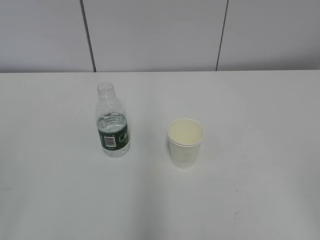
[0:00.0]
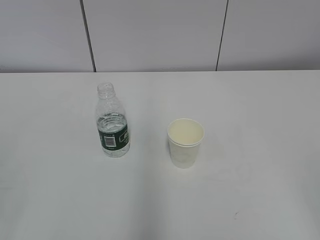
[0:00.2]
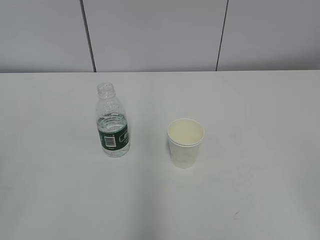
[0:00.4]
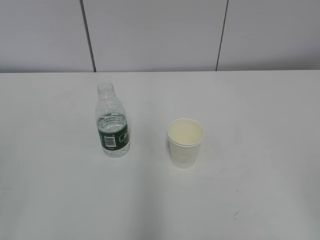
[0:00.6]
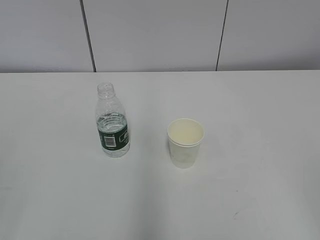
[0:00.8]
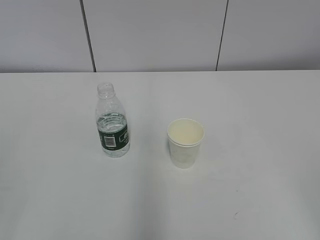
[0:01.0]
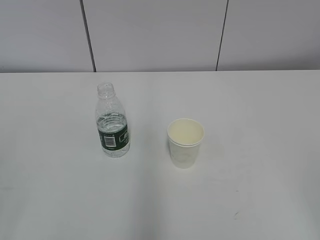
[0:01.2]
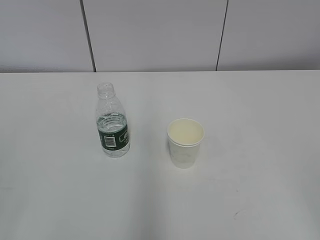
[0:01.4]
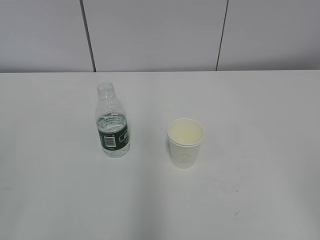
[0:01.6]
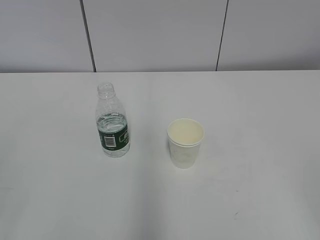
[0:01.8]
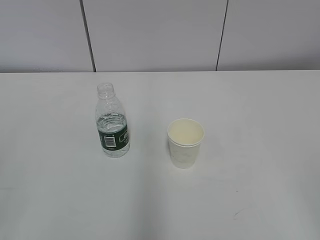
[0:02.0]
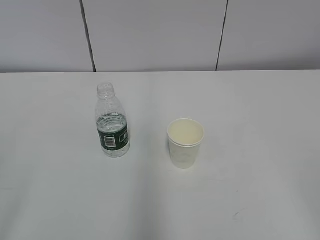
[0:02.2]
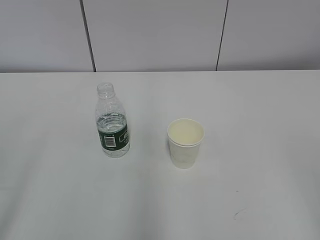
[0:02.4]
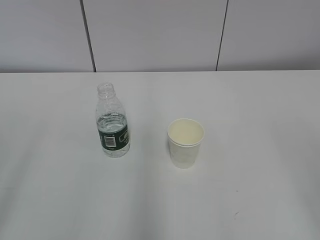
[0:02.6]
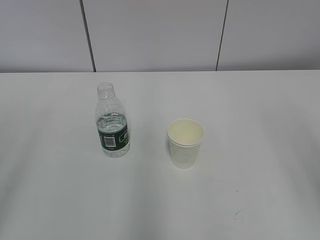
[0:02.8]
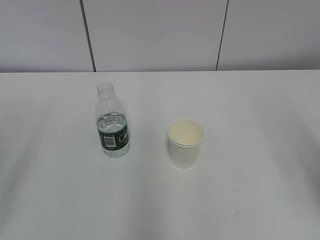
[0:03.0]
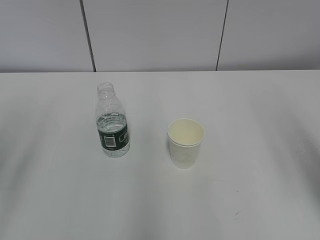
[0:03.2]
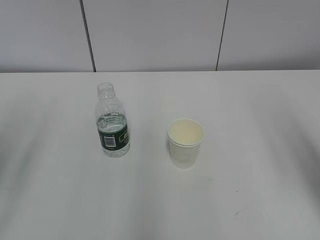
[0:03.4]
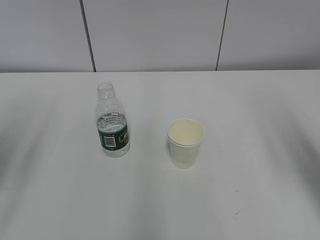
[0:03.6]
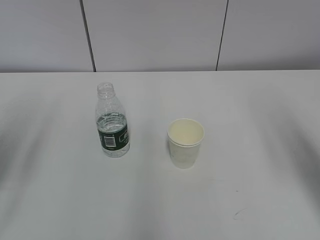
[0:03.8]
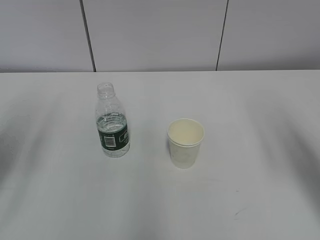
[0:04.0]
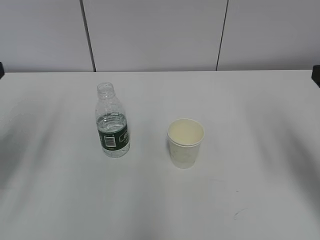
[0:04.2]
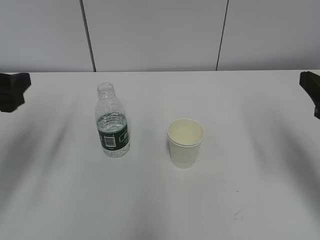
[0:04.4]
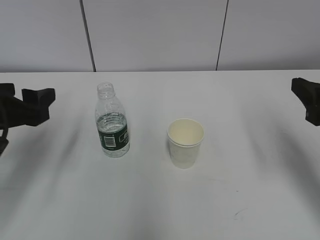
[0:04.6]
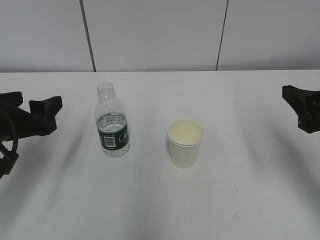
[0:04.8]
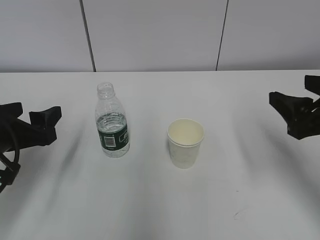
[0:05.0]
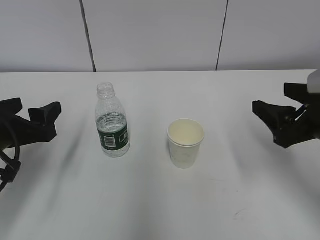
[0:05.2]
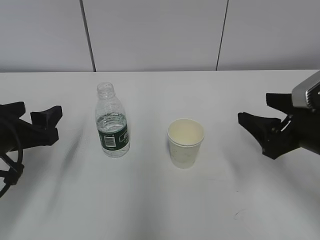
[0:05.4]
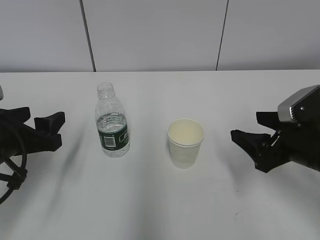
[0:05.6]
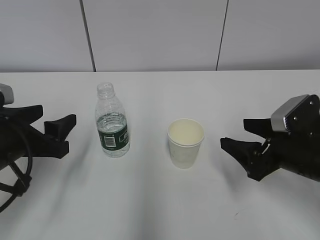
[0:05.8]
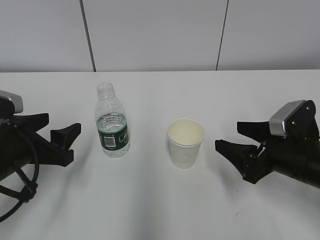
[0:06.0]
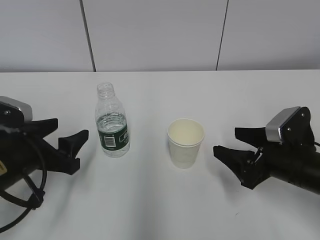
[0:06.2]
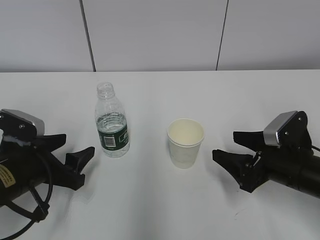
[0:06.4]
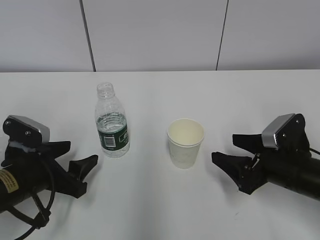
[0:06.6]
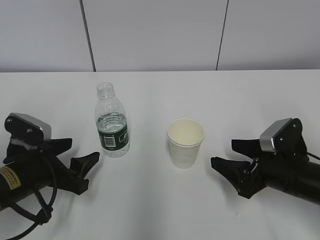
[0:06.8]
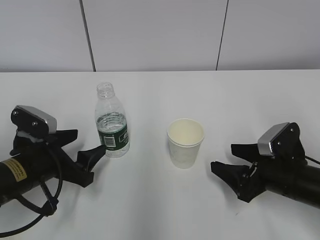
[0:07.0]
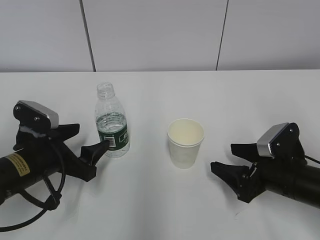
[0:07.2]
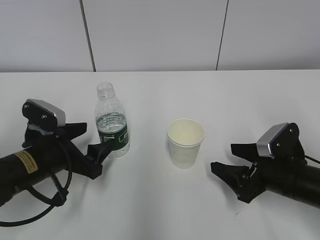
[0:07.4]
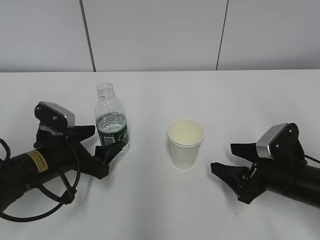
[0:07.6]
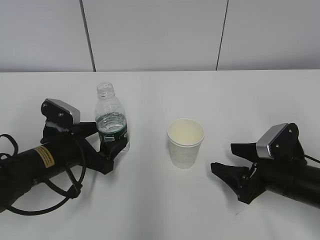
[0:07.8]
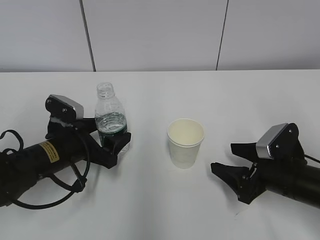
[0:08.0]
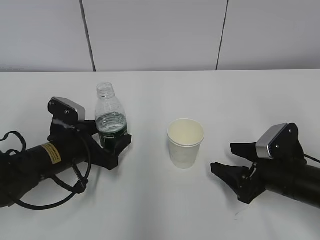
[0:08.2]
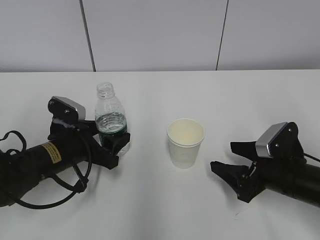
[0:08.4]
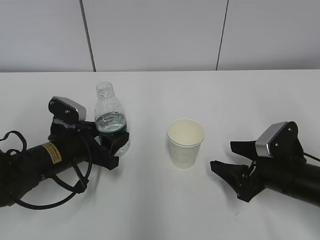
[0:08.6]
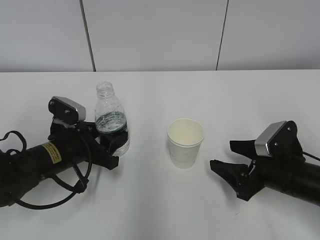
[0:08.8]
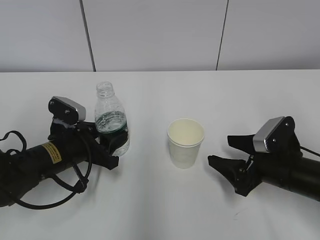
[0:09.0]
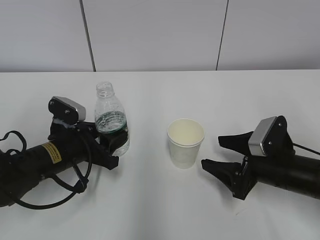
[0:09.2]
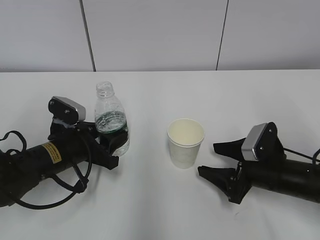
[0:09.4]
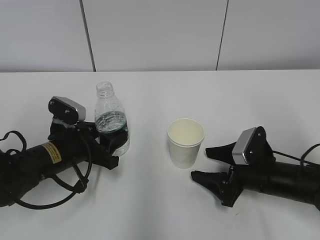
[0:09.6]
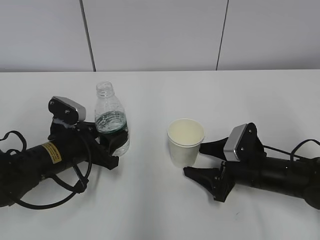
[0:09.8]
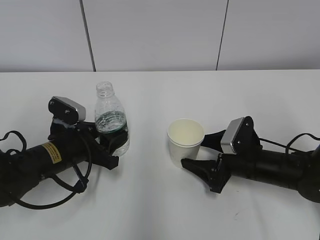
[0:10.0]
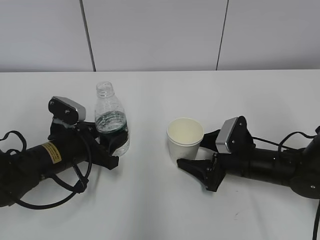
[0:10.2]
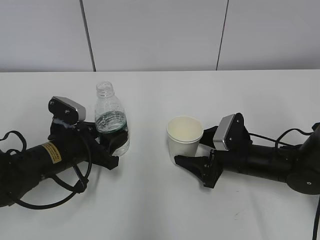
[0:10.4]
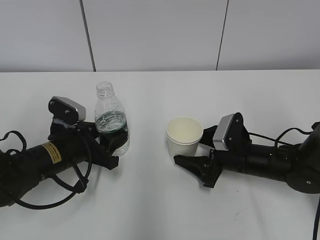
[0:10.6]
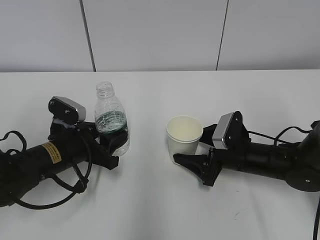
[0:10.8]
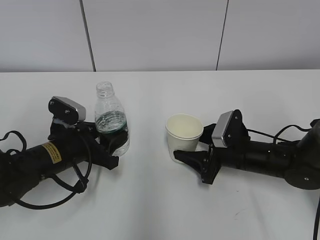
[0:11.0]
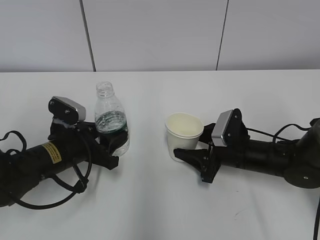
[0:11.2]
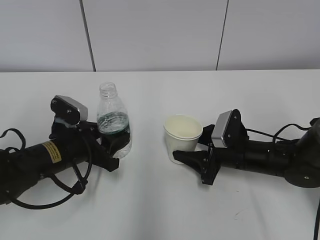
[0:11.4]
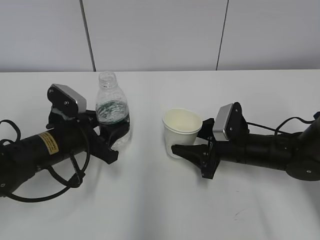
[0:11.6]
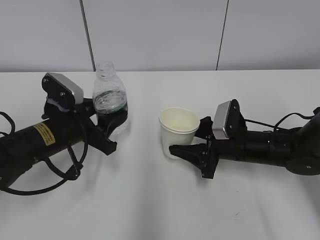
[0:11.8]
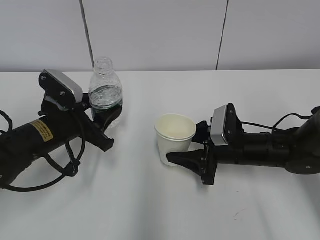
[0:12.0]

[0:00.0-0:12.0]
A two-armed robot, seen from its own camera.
Step, 0:00.0 to 0:07.2: Grab the water bottle with the left hand.
Step, 0:07.4 to 0:09.2: Grab the paper cup with the right hand.
0:03.0 to 0:04.4: Both grippers travel together forward and downward, some 15 cm.
0:04.4 to 0:06.0: The two grippers go about 10 cm downward.
0:06.0 to 0:07.6: The left gripper is displaced downward by roughly 5 cm.
0:07.6 to 0:09.0: The left gripper closes its fingers.
0:09.0 to 0:10.4: The right gripper shifts some 5 cm forward.
0:10.4 to 0:12.0: The right gripper closes its fingers; the left gripper shifts by approximately 5 cm.

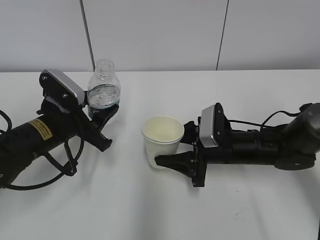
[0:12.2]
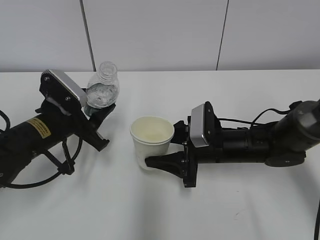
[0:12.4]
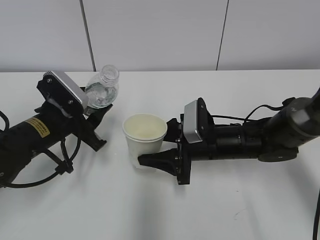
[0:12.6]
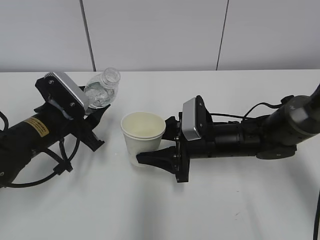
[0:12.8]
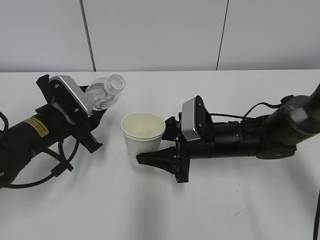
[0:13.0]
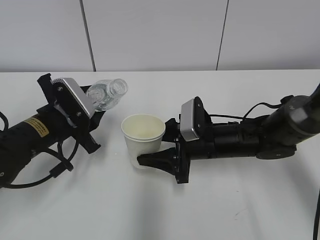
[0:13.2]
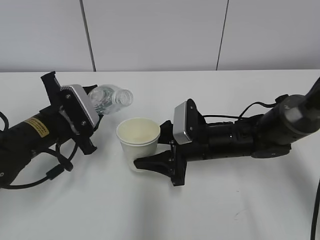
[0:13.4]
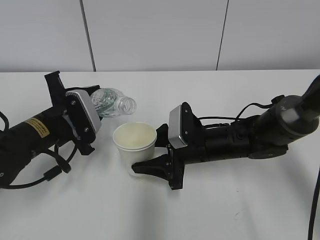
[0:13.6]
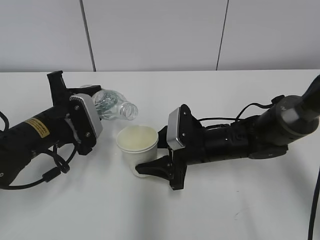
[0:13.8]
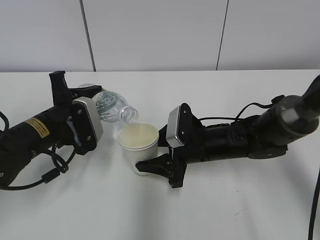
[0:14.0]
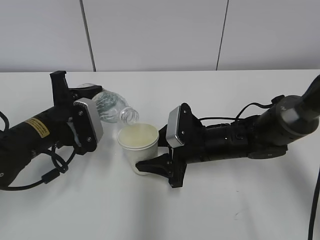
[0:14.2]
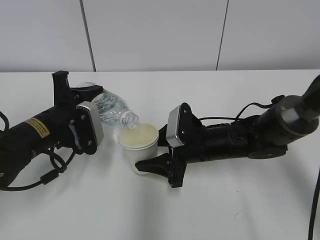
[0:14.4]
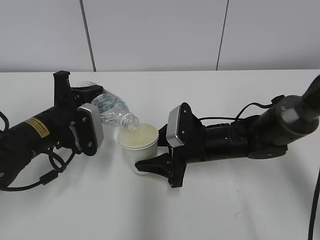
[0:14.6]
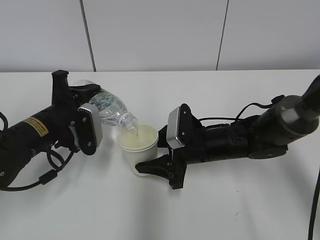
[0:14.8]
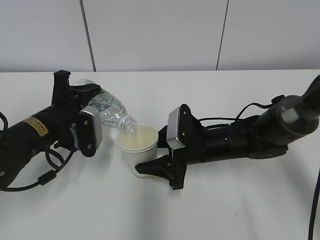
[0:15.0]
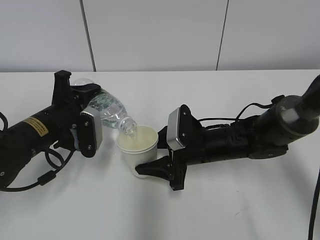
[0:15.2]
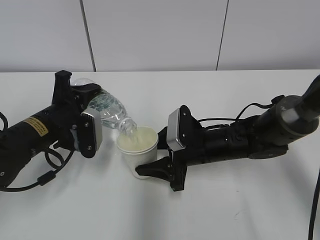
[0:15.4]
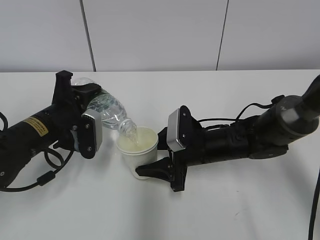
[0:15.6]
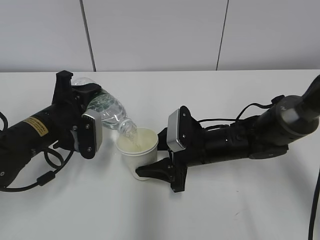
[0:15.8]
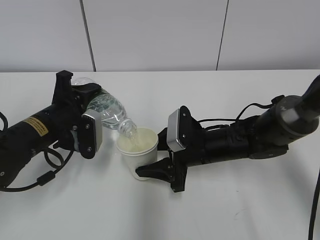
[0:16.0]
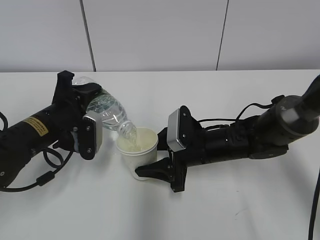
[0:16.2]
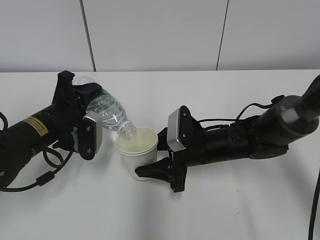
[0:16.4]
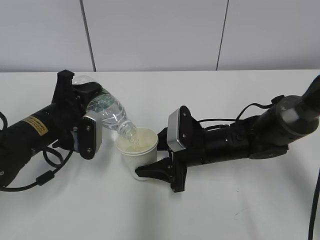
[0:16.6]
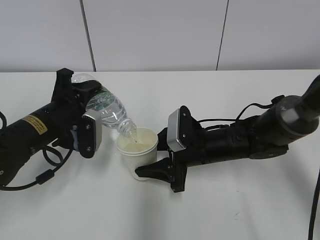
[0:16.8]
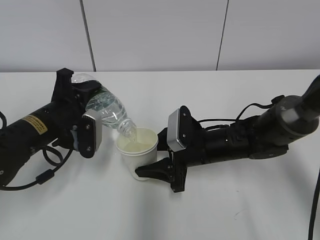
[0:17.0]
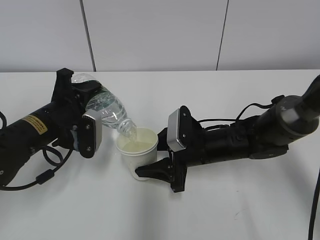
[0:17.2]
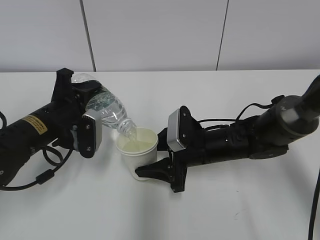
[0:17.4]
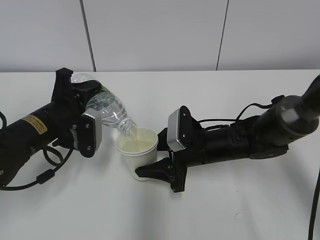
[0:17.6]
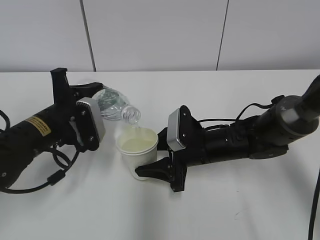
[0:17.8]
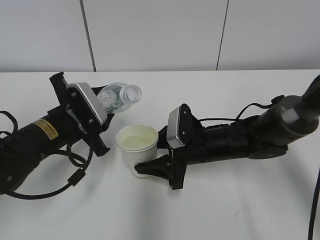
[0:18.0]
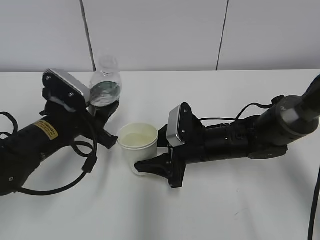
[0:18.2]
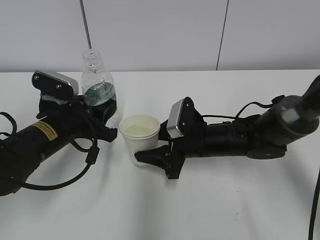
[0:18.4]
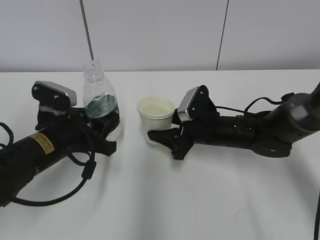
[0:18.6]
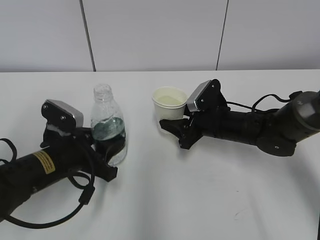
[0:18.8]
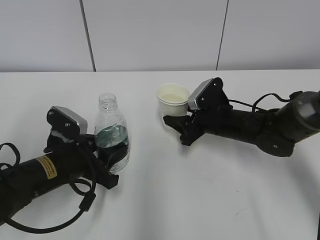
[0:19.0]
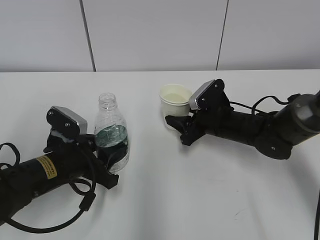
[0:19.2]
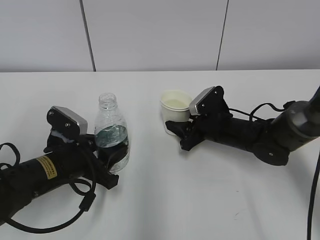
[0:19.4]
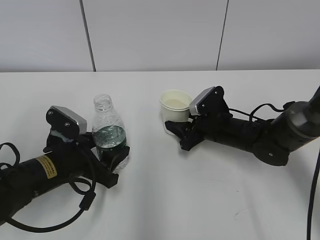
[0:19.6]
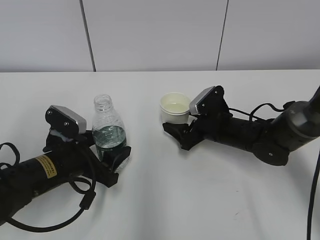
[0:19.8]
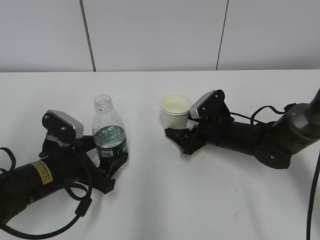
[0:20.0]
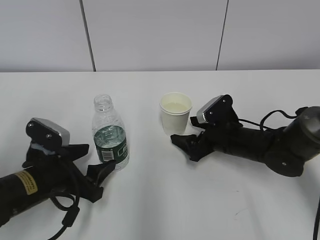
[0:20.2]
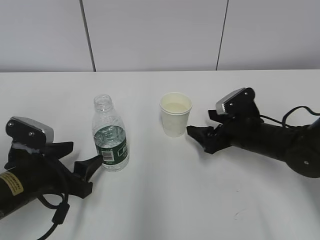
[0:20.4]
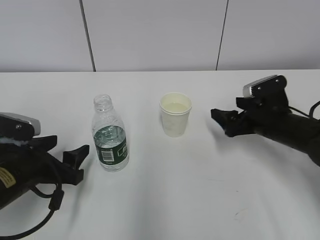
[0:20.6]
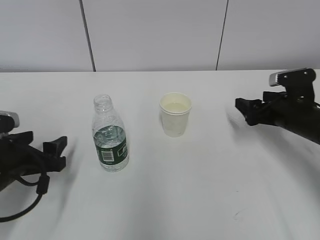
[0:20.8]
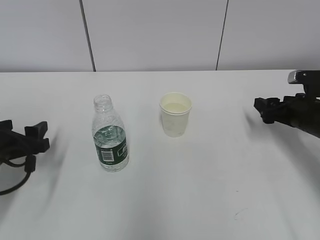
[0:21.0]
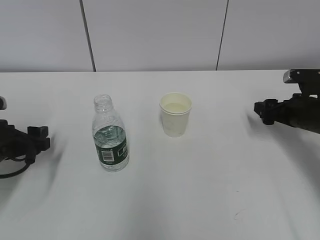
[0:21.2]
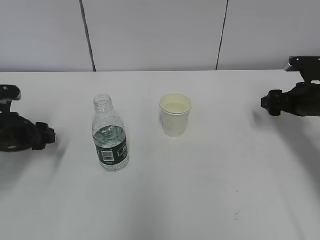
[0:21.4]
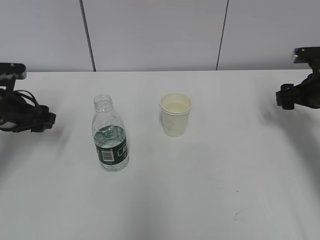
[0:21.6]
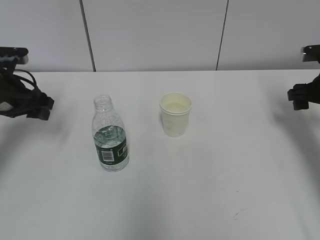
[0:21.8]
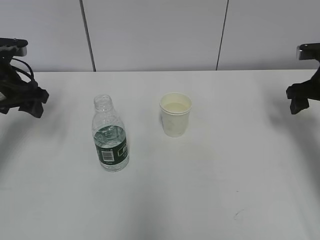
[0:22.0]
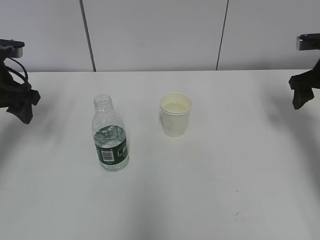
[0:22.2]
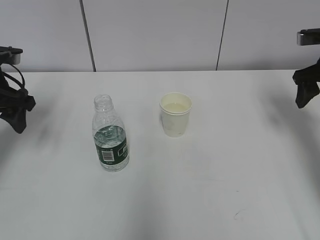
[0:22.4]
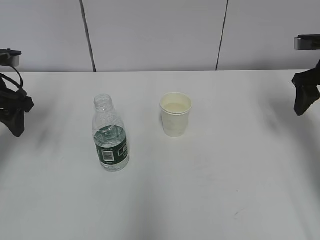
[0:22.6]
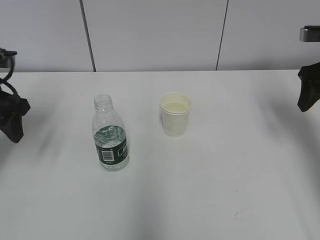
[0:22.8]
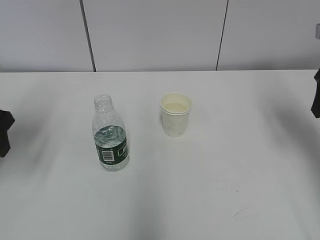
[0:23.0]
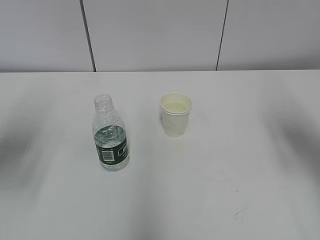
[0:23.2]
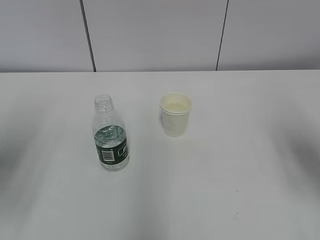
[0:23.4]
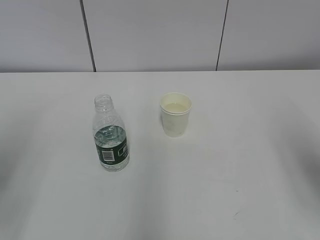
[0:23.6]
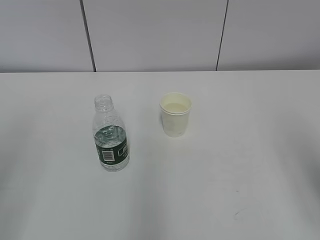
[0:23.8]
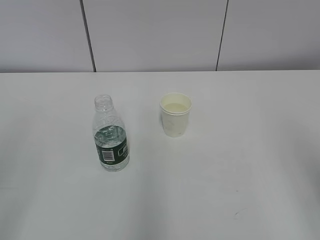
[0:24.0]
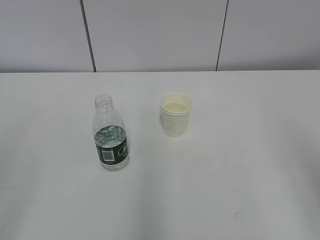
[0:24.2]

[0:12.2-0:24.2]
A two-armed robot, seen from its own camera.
Step, 0:12.4 to 0:14.8: Fill water with the right hand.
Step, 0:12.4 to 0:14.8: Pour water with the left hand.
0:13.8 to 0:15.2: The grippers stay close to where they were, moving slightly.
0:15.2 to 0:16.6: The grippers move only a little.
0:18.2 to 0:19.8: The left gripper ends up approximately 5 cm from where it was, and opens. Meanwhile the right gripper travels to the right by roughly 5 cm, and opens up.
0:19.8 to 0:21.2: The right gripper is displaced to the right by some 15 cm, while the left gripper heads to the left, covering roughly 10 cm.
0:21.2 to 0:22.6: The left gripper is displaced upward and forward by roughly 15 cm; the right gripper heads upward, covering roughly 10 cm.
0:22.6 to 0:24.2: Both grippers travel together backward, some 30 cm.
